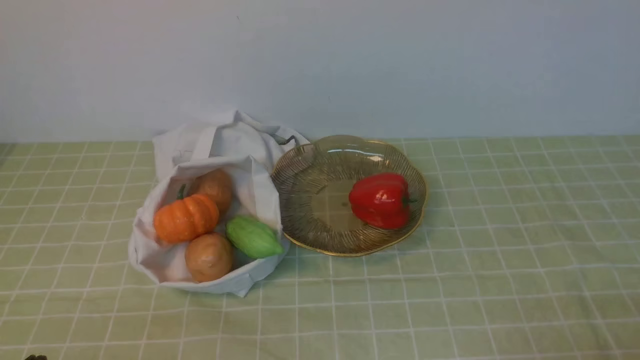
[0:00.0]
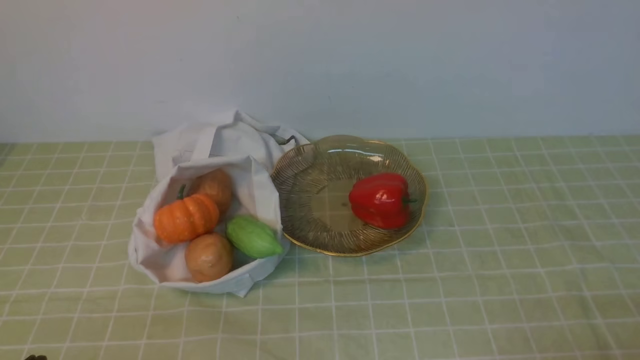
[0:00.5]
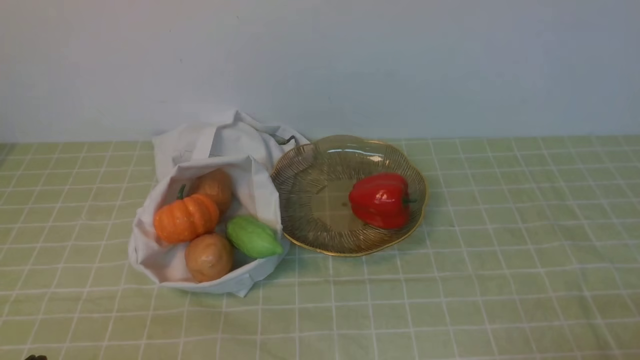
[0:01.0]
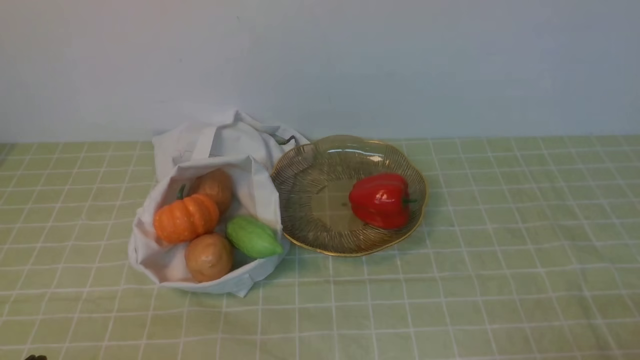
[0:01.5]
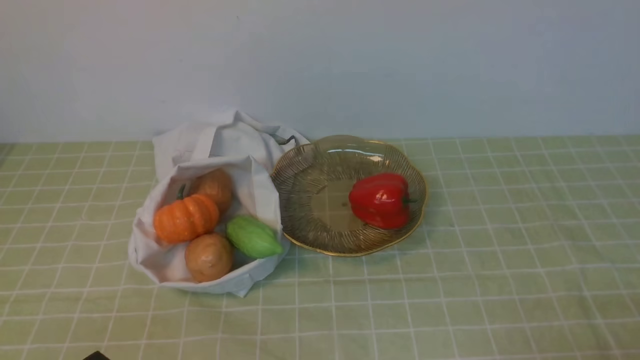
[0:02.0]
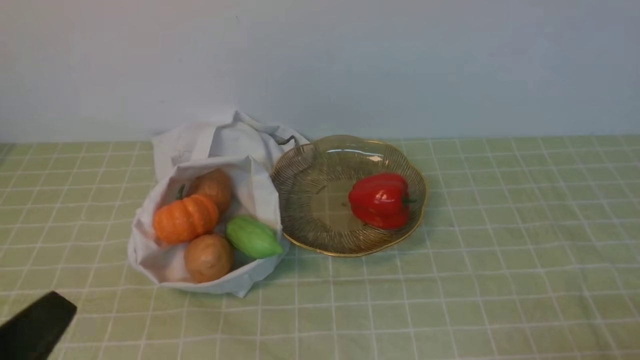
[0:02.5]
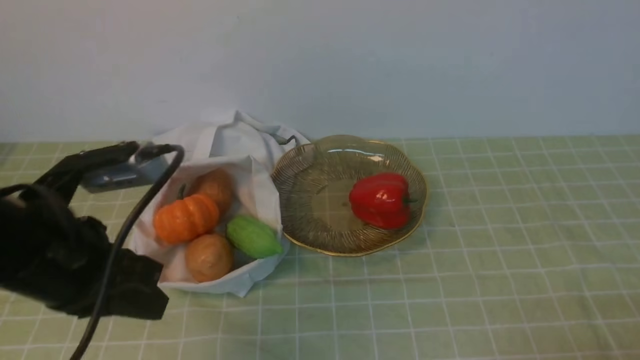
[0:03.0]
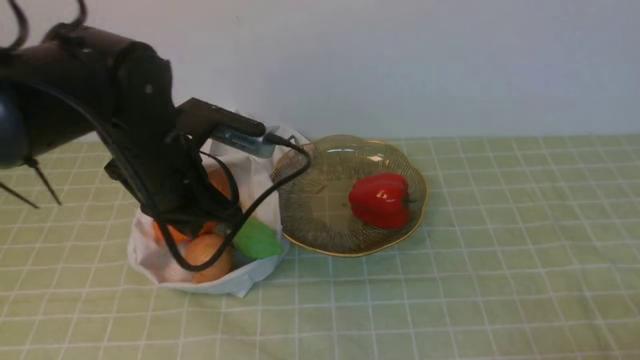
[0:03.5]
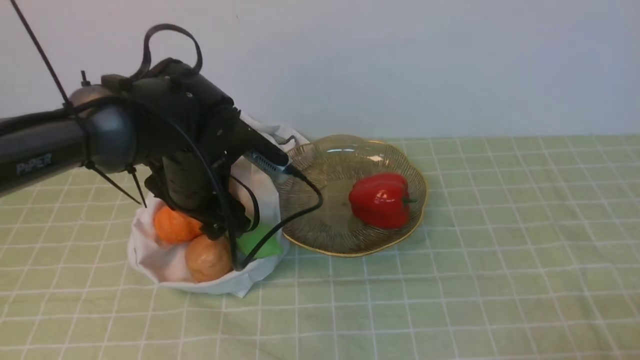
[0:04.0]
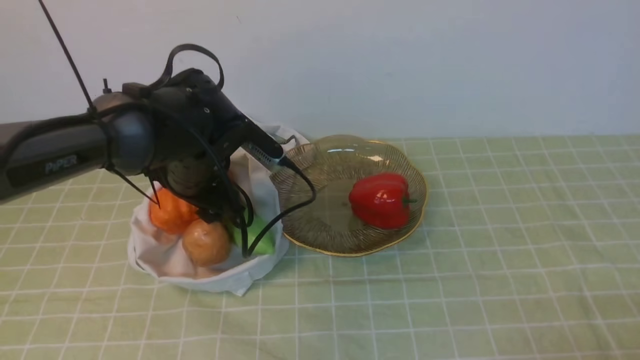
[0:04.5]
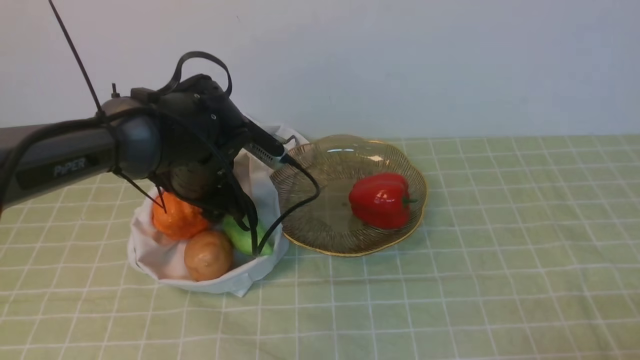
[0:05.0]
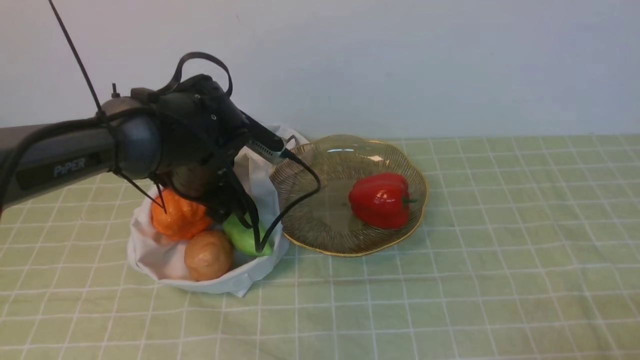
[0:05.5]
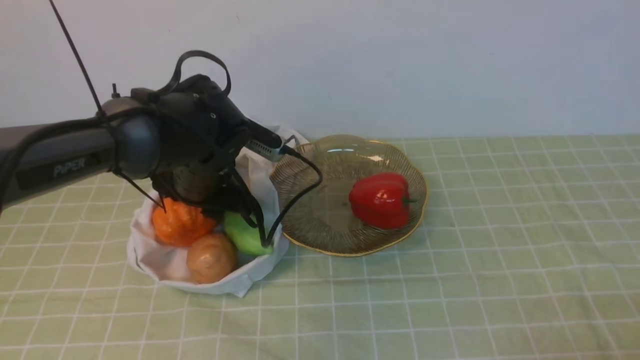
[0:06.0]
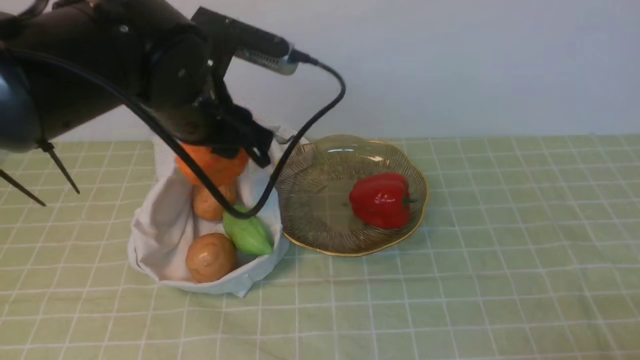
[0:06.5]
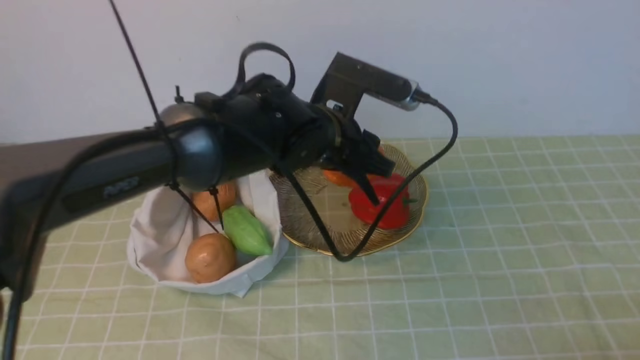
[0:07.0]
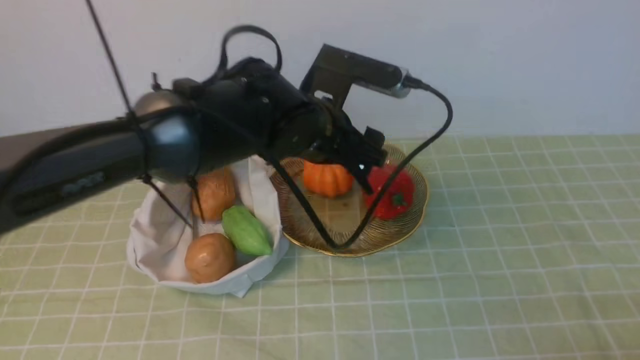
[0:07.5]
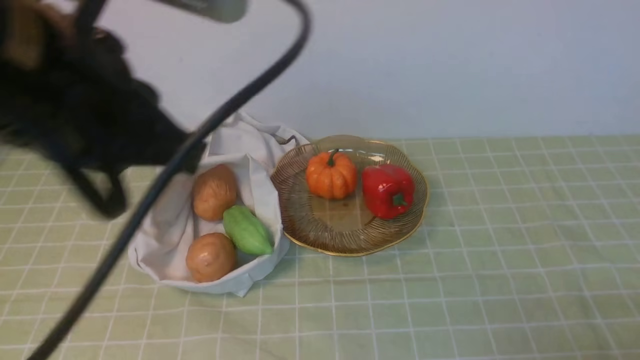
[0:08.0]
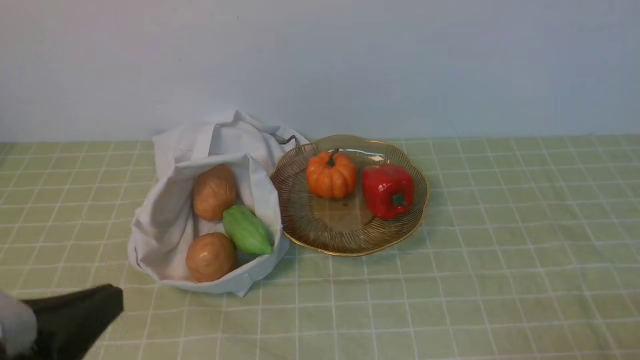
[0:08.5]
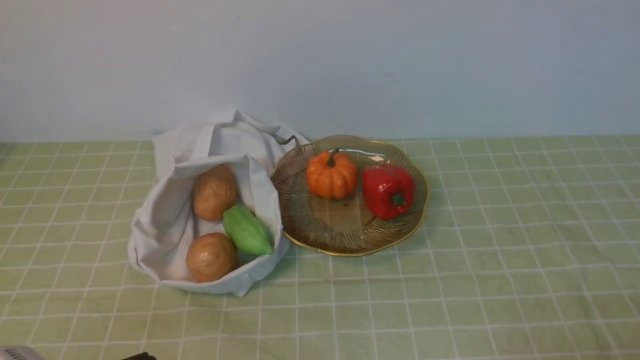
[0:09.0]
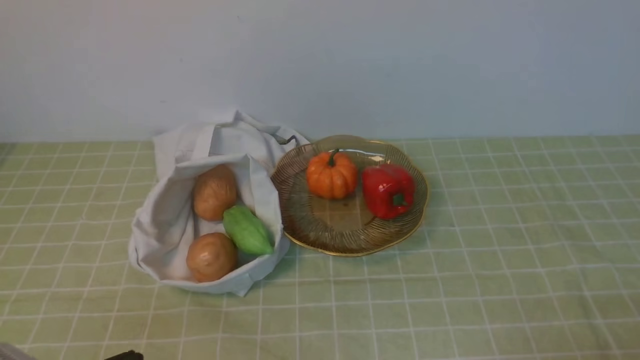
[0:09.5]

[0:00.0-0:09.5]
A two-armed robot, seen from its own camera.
Task of the whole recording: take vegetables from bag on green coffee tablecloth place on plate.
Step, 0:00.0 to 0:04.0: Grasp the pumpkin with left gripper.
Step, 0:04.5 to 0:07.5: Place the pumpkin on the plate with left gripper.
0:02.0 to 0:04.0: The left gripper moves forward, about 30 cm, and opens.
0:04.0 to 0:05.5: There are only small adjustments of the grippers.
0:05.5 to 0:07.5: The left gripper shifts about 10 cm to the right, and closes and opens again.
0:07.5 to 0:09.5: The left gripper is displaced backward and to the left by some 35 cm, and closes its fingers.

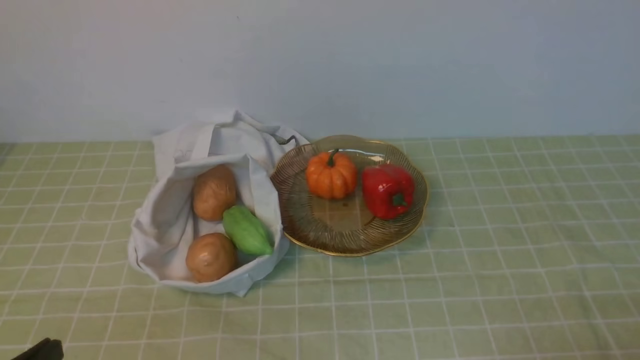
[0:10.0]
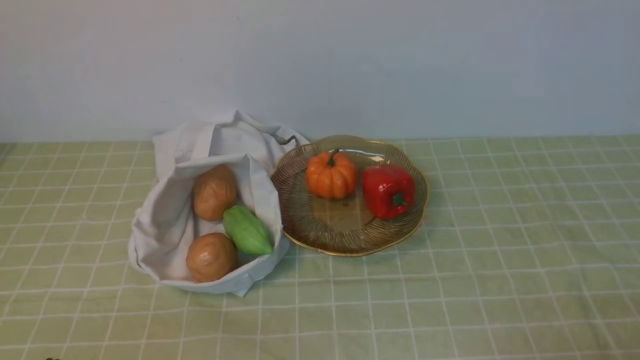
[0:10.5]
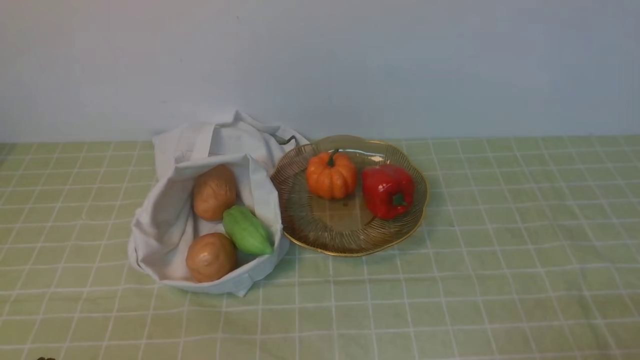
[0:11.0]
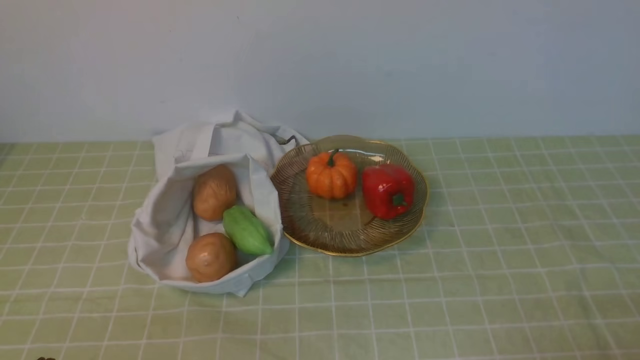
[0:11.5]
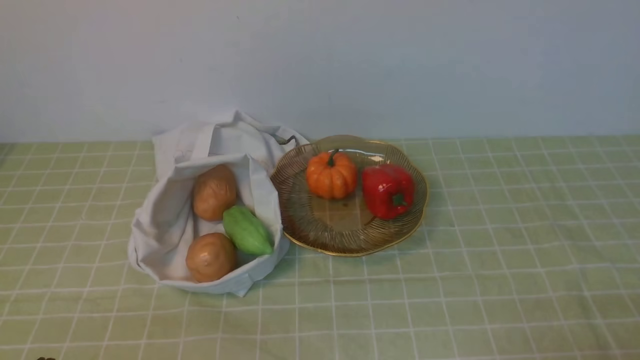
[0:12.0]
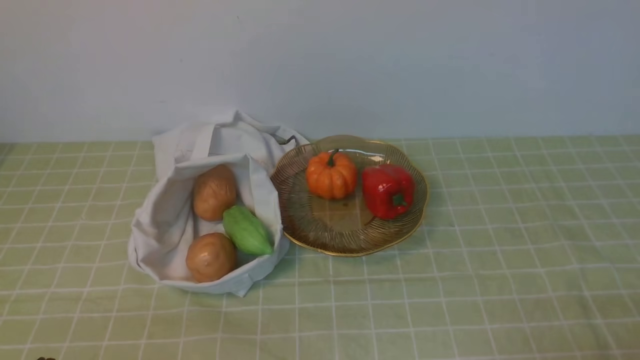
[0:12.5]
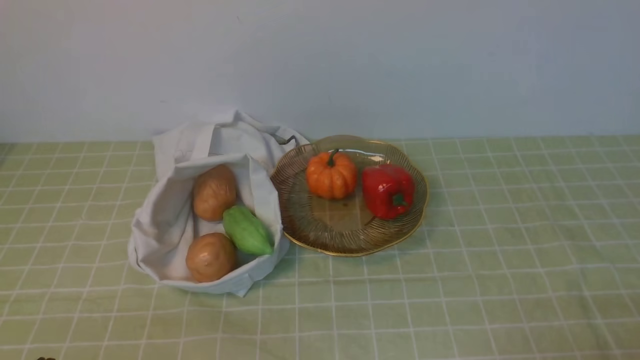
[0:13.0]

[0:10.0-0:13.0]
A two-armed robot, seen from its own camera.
Task of the whole recording: take vegetables from bag on green coffee tablecloth place on plate.
0:11.5 to 0:13.0: Both grippers stay about where they are.
